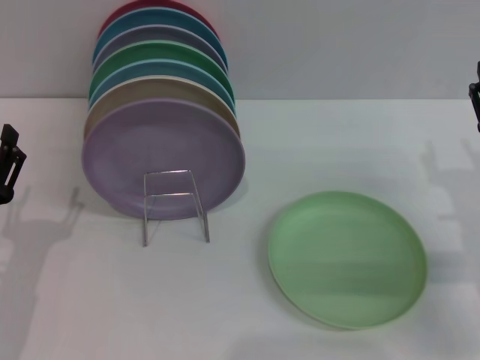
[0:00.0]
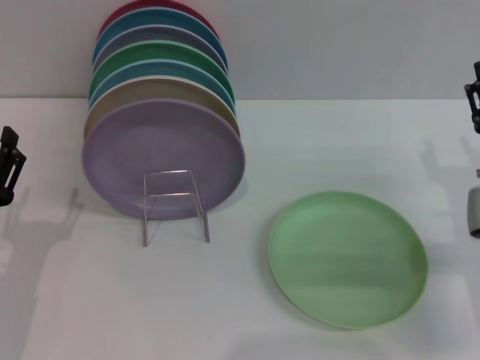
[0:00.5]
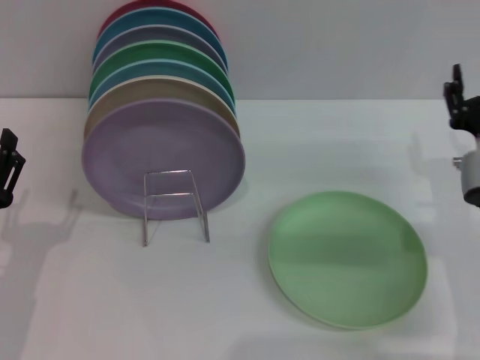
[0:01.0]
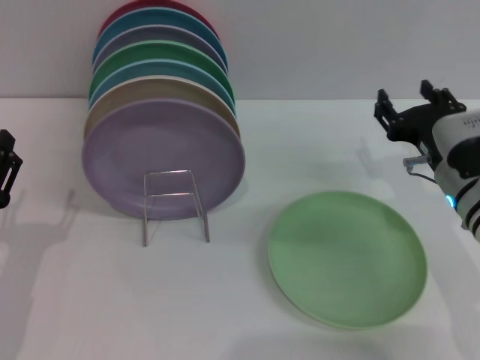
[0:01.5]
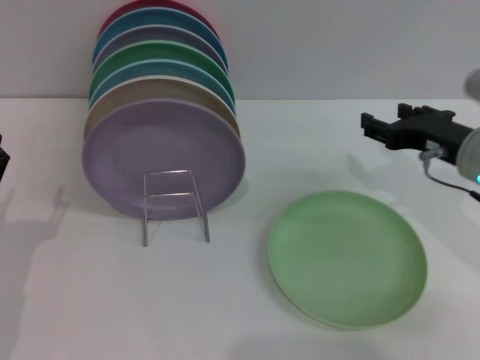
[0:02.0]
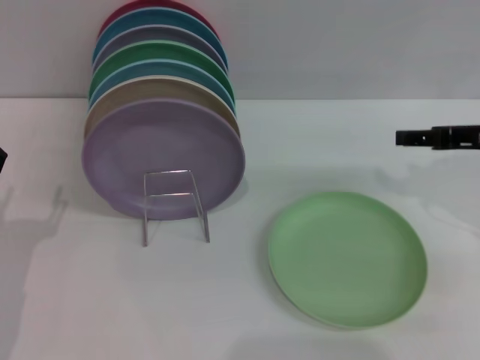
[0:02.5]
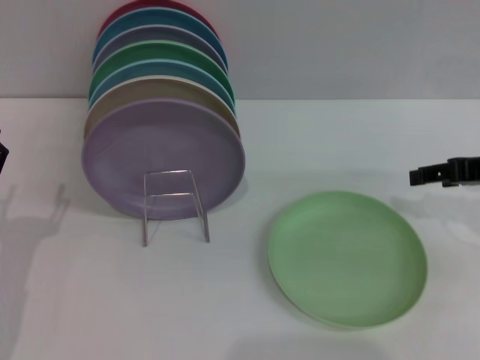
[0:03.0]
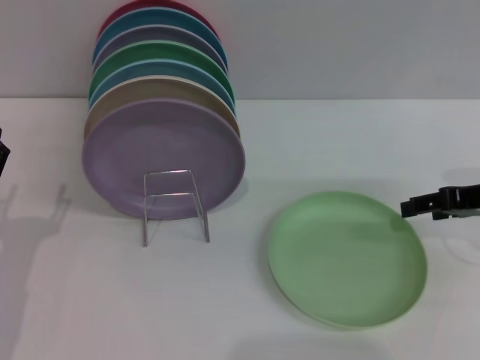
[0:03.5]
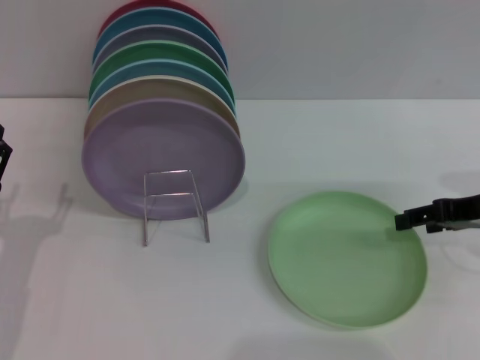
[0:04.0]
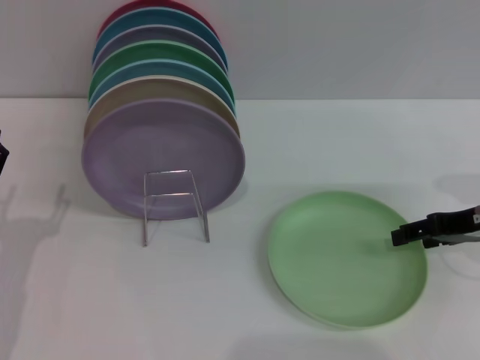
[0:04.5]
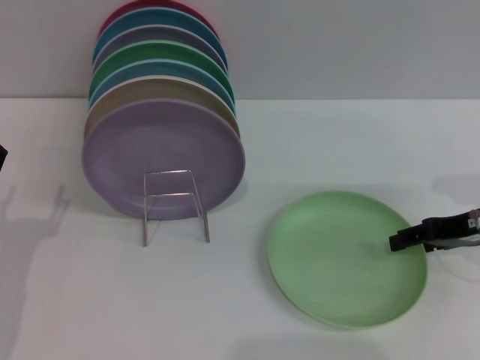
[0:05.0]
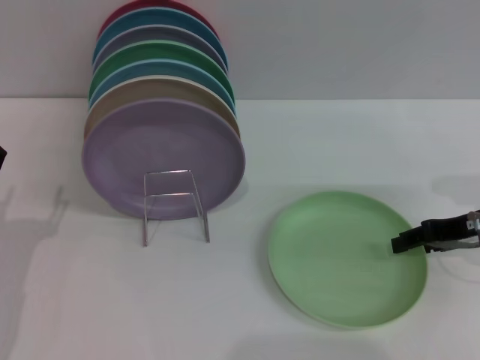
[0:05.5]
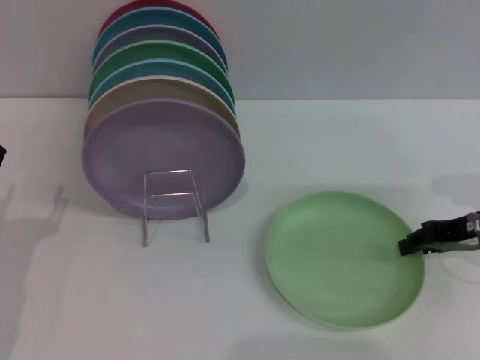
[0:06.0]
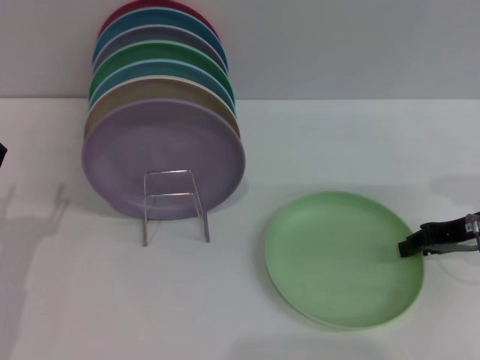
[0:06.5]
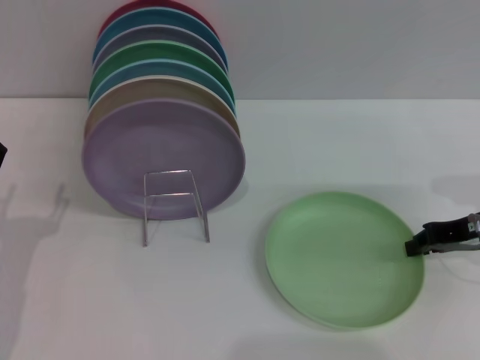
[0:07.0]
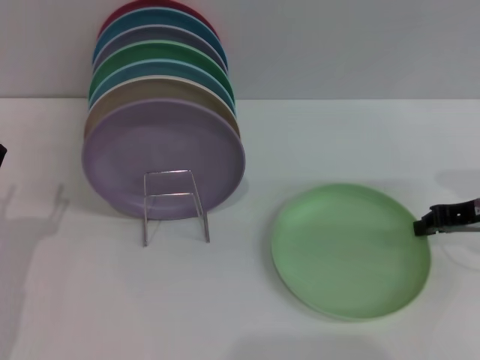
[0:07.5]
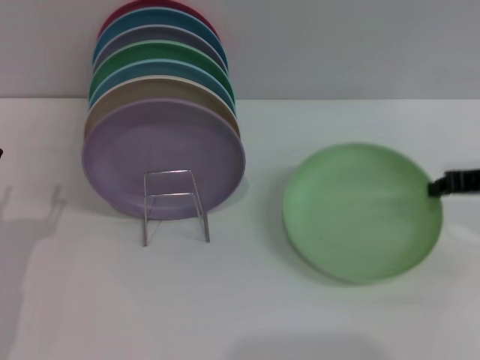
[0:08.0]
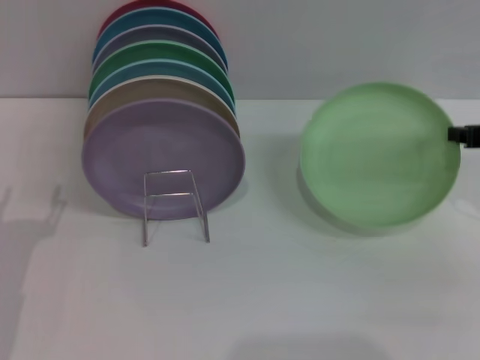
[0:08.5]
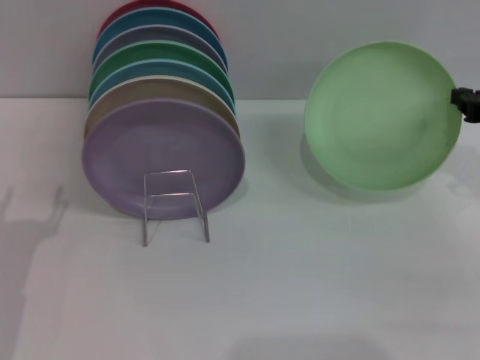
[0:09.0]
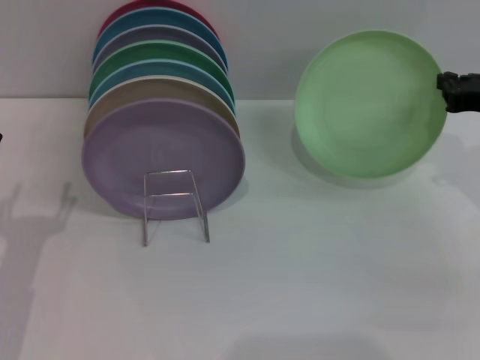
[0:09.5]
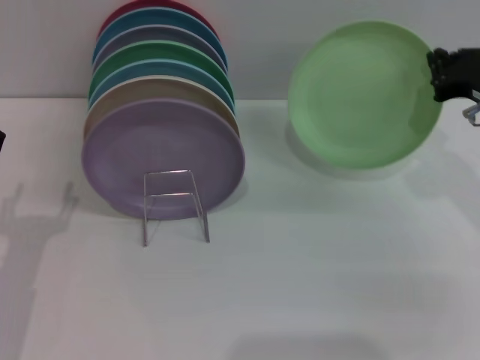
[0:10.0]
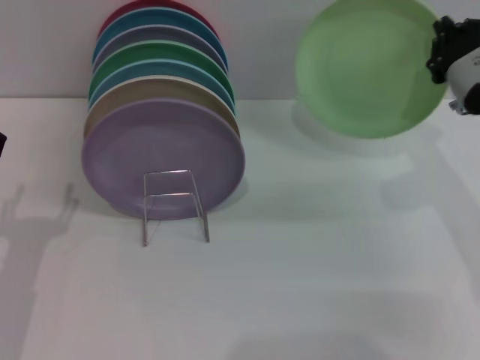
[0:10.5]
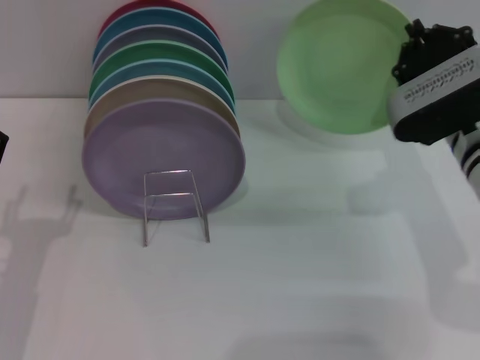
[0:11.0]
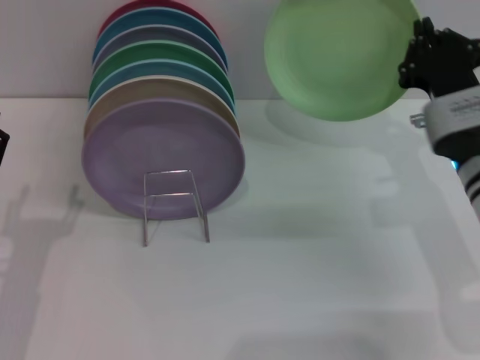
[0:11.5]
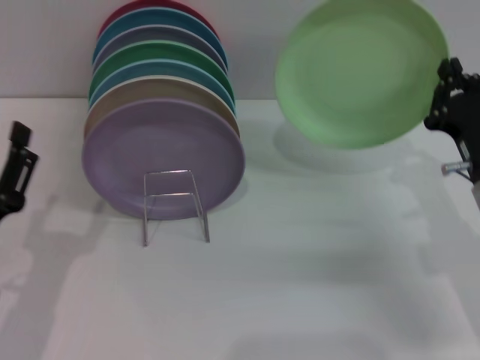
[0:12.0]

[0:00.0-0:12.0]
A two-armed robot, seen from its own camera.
Task of the whole recording: Grip the plate with one hand, pass it to the other, then set it on the shelf.
Step, 0:00.0 to 0:08.0: Pick up the plate with the right gripper.
0:00.0 to 0:02.0: The right gripper travels upward by some 5 cm.
0:02.0 to 0:04.0: The right gripper goes some 5 cm to the right.
0:04.0 to 0:06.0: The right gripper closes up.
0:06.0 to 0:08.0: The right gripper closes its fingers.
0:10.0 to 0:12.0: The right gripper shifts about 10 cm downward and backward.

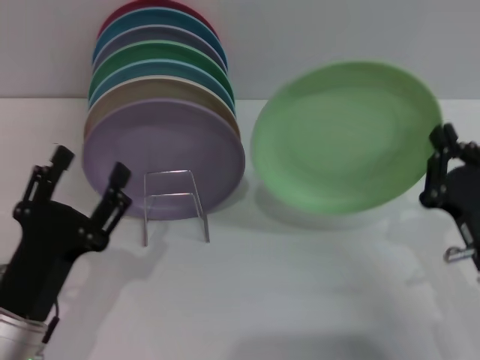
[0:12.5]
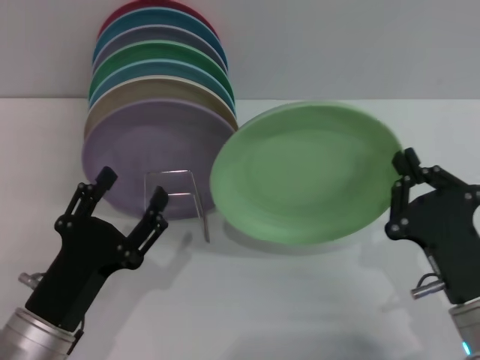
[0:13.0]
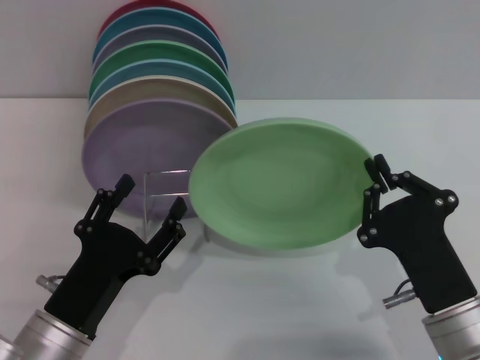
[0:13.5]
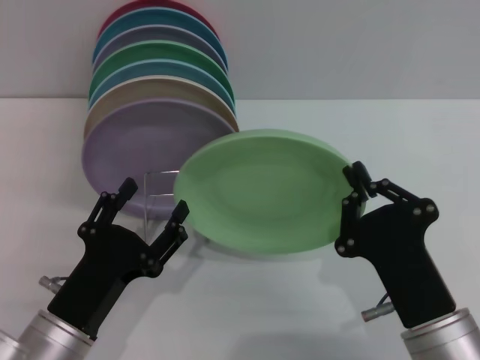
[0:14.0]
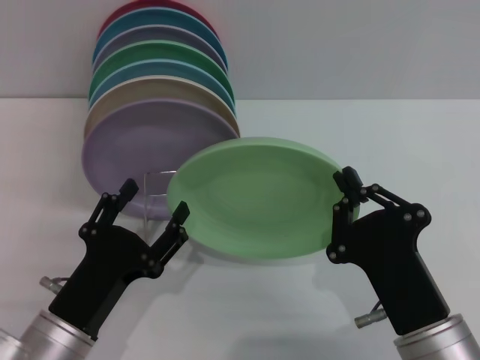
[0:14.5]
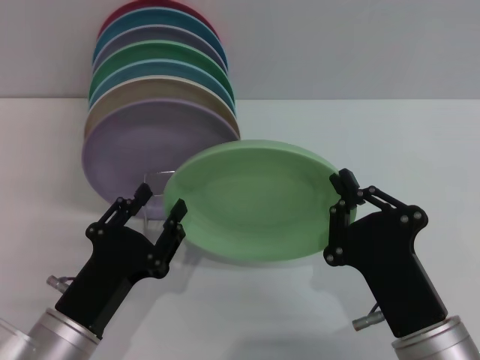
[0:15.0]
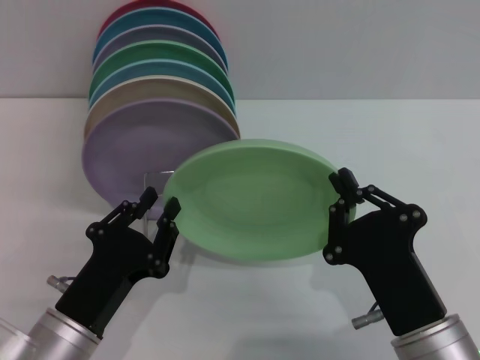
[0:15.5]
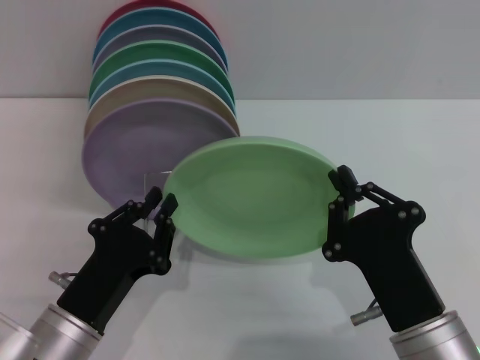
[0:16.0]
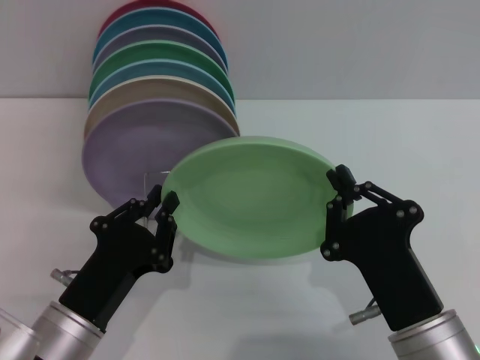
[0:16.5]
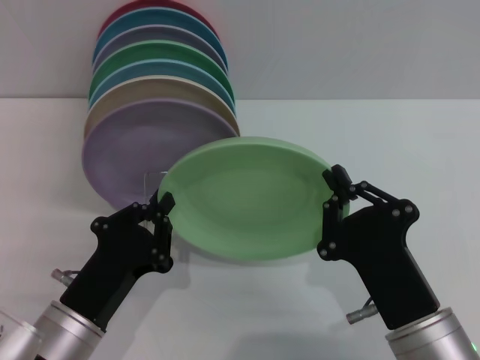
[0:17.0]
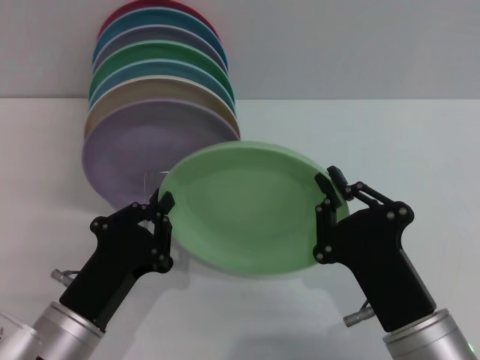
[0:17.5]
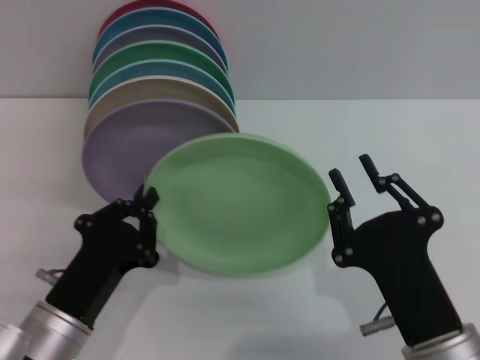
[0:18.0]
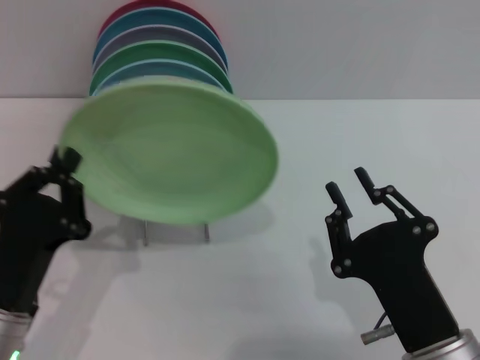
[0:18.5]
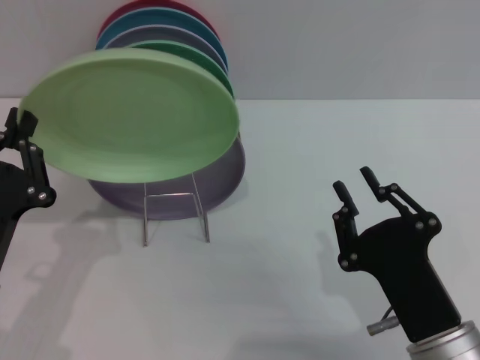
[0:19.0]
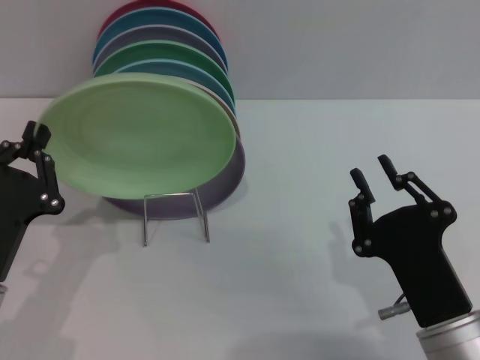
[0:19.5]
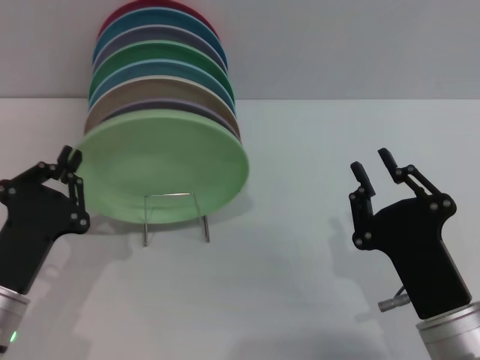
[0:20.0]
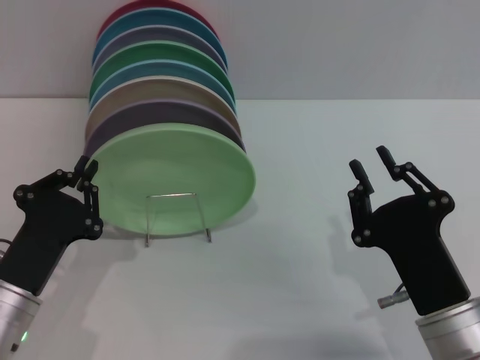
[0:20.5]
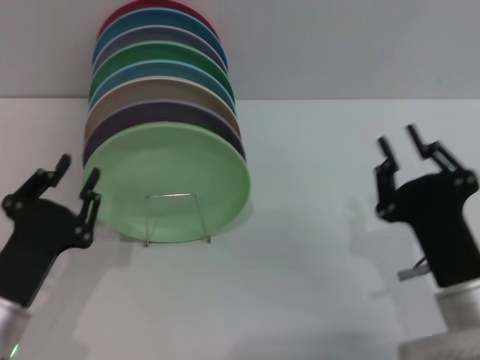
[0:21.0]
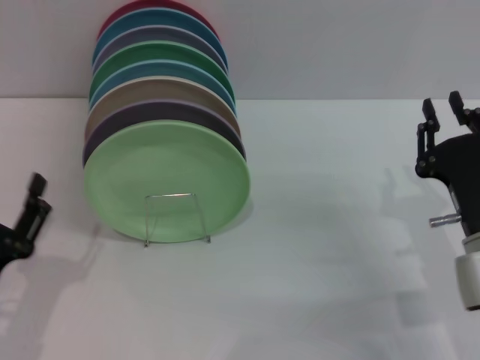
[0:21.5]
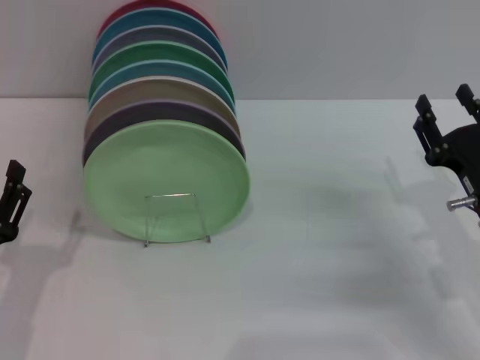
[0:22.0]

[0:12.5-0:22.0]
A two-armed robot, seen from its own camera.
Task of the whole recording: Grip the plate with one hand, pass it to the other, then set it on the shelf.
Step, 0:12.5 to 0:17.5: Pass the plate from the right gripper to the left gripper.
Step, 0:18.0 to 0:20.5: Place the plate on the shelf with the left gripper.
0:12.5 to 0:14.5: The right gripper is displaced to the left and backward by some 10 cm.
0:14.5 to 0:16.5: The left gripper closes up.
0:16.5 to 0:18.0: The grippers move only a little.
0:18.0 to 0:20.0: The left gripper shifts by approximately 5 cm.
0:20.0 to 0:22.0: The right gripper heads forward and to the right, covering roughly 15 cm. The left gripper opens up.
